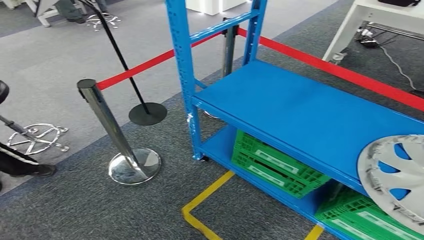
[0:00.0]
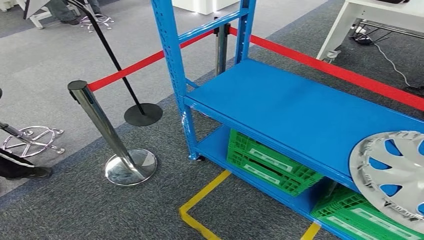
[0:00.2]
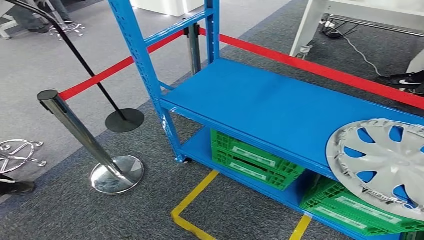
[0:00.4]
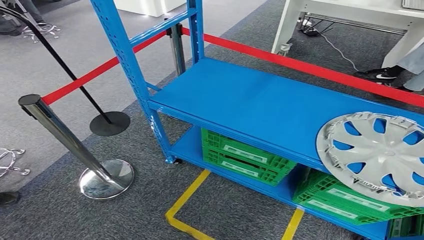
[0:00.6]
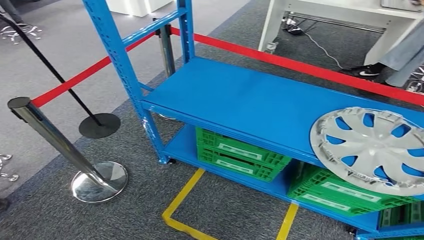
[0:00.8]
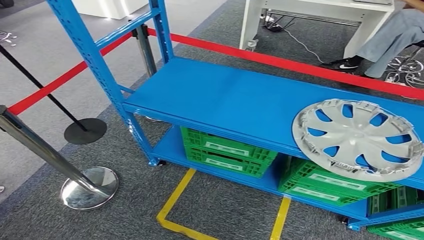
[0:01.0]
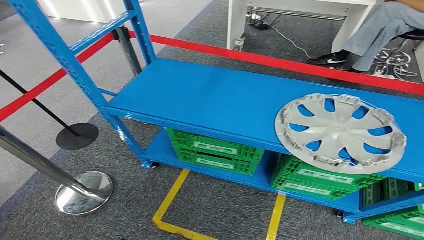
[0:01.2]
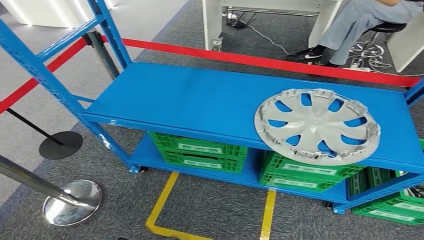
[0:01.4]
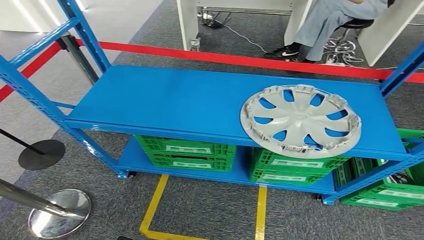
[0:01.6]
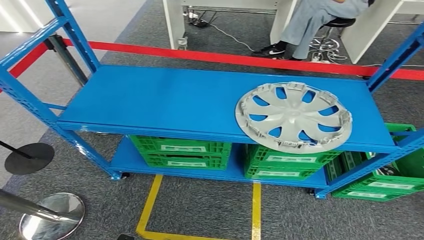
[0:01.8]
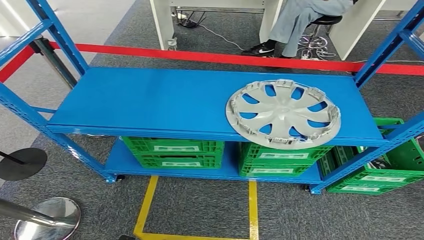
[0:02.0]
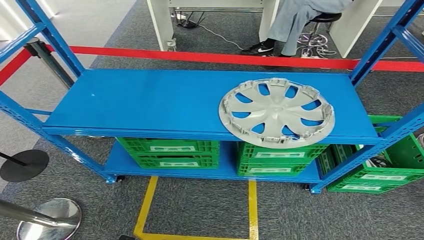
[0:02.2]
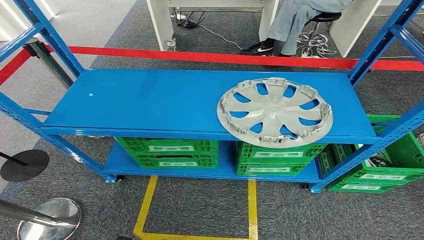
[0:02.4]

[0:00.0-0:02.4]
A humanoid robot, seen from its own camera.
Step, 0:00.0 to 0:02.4: Return to the initial position at the workbench.
